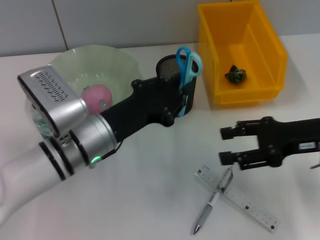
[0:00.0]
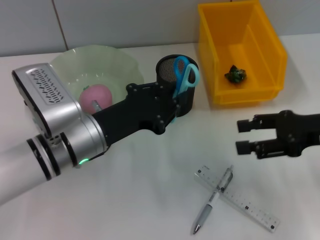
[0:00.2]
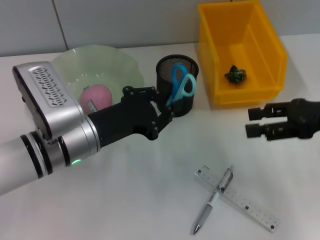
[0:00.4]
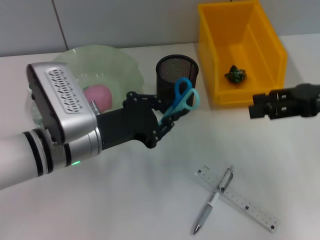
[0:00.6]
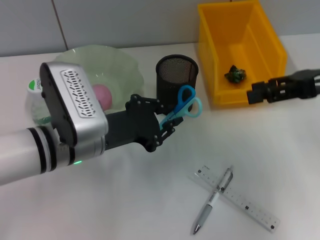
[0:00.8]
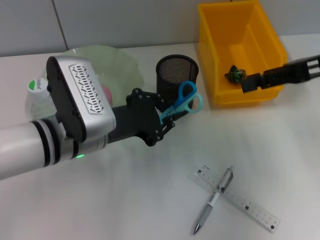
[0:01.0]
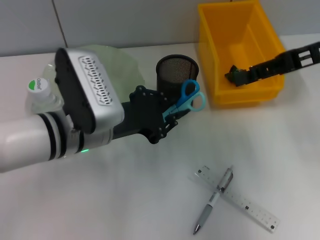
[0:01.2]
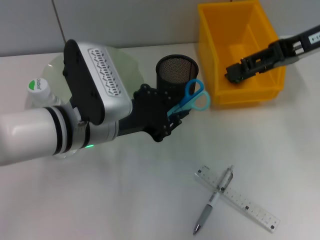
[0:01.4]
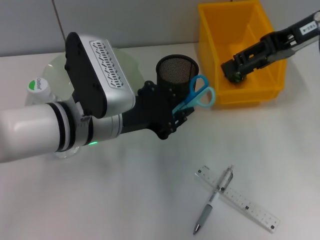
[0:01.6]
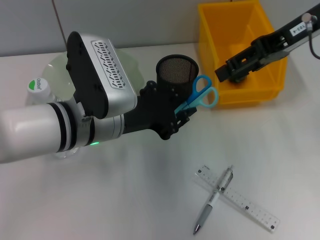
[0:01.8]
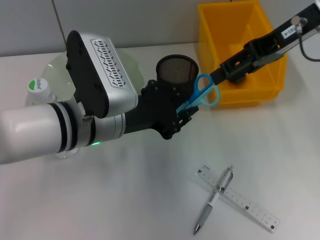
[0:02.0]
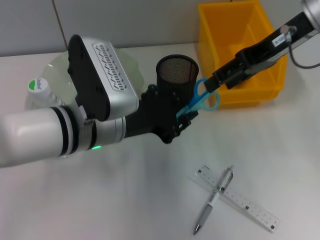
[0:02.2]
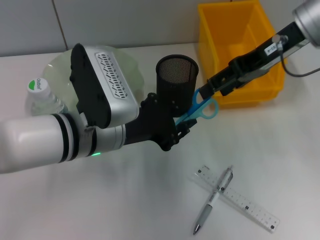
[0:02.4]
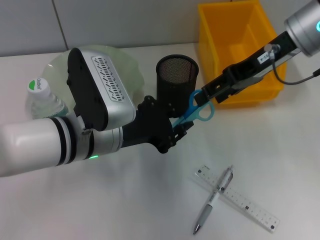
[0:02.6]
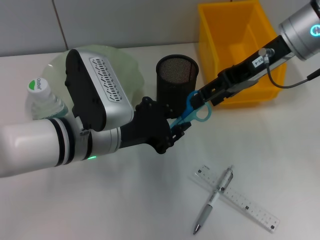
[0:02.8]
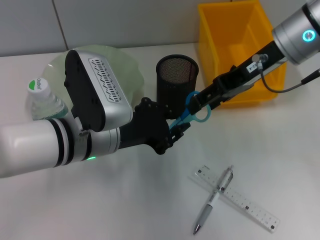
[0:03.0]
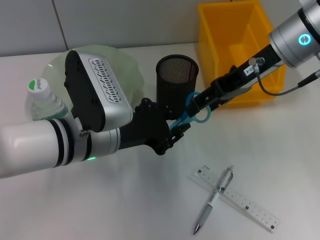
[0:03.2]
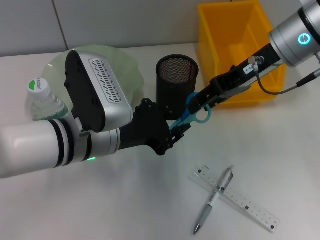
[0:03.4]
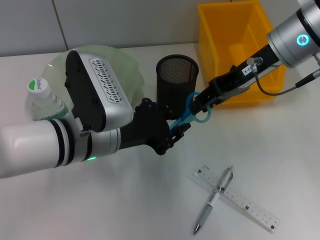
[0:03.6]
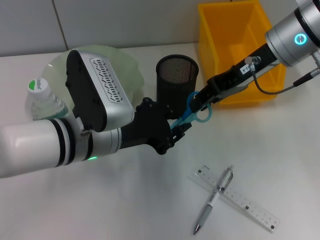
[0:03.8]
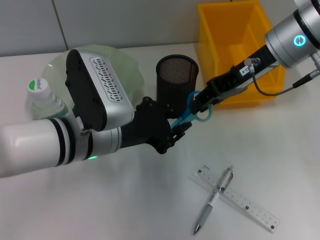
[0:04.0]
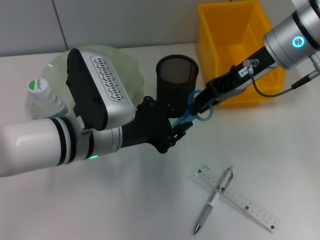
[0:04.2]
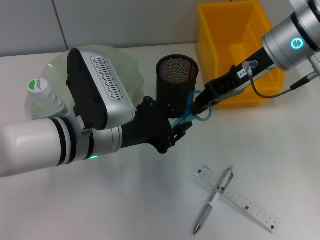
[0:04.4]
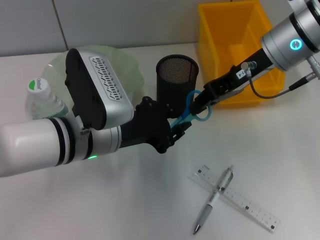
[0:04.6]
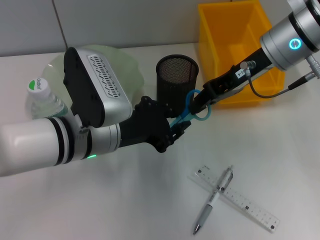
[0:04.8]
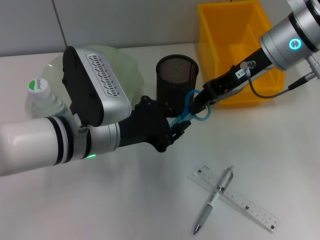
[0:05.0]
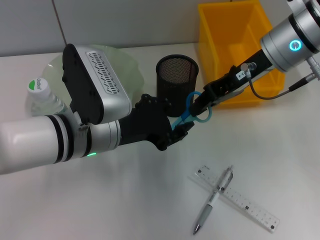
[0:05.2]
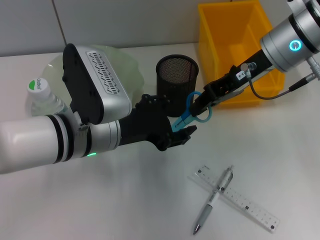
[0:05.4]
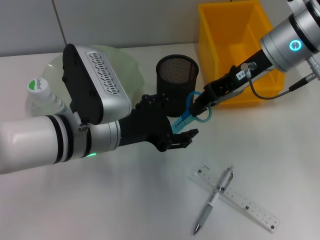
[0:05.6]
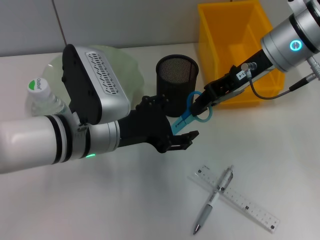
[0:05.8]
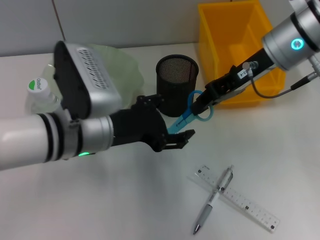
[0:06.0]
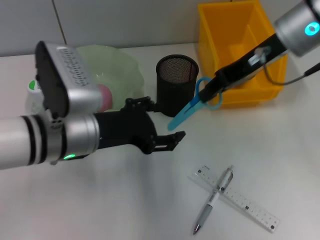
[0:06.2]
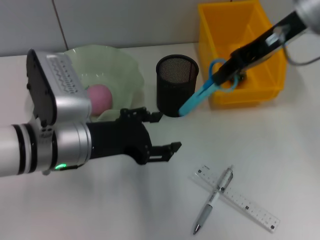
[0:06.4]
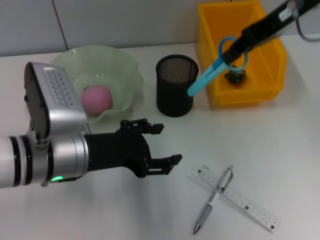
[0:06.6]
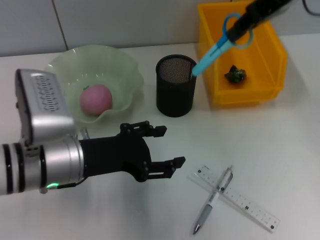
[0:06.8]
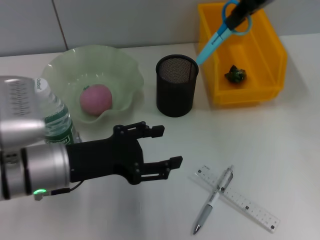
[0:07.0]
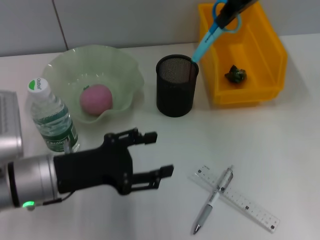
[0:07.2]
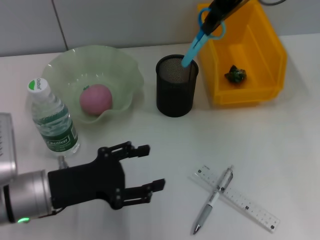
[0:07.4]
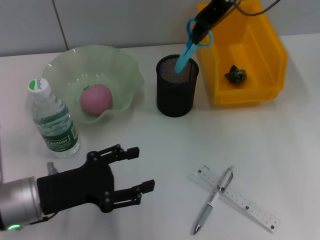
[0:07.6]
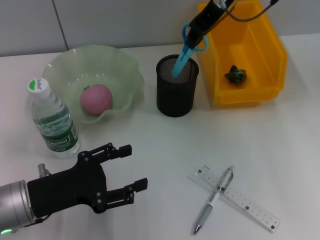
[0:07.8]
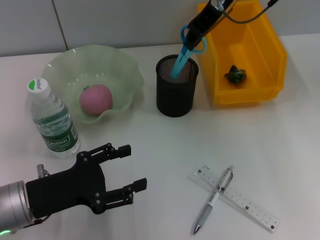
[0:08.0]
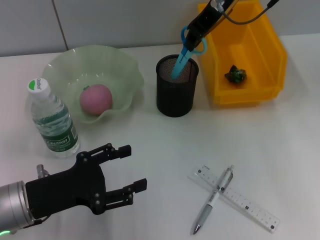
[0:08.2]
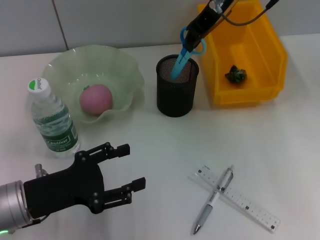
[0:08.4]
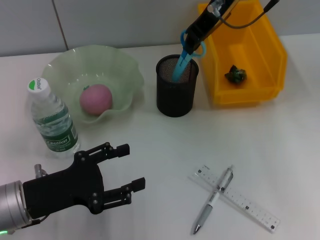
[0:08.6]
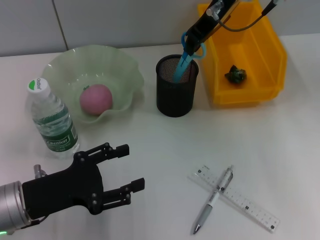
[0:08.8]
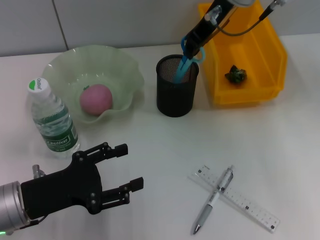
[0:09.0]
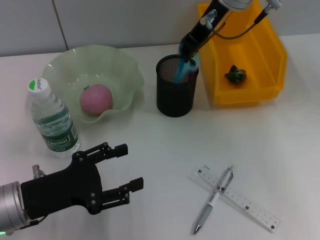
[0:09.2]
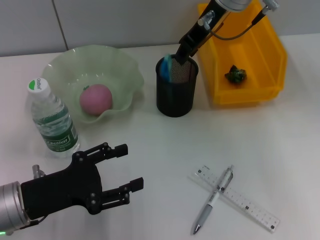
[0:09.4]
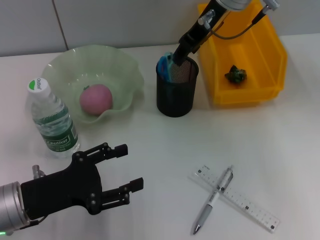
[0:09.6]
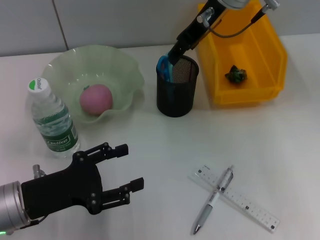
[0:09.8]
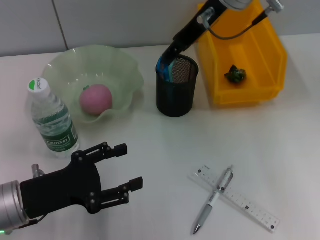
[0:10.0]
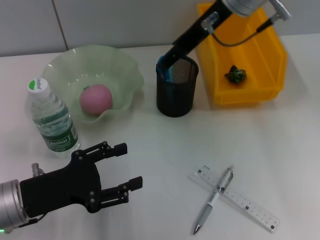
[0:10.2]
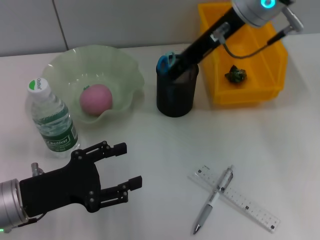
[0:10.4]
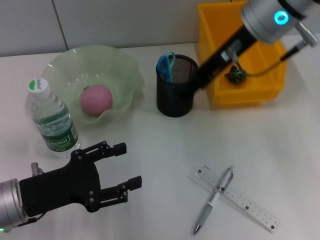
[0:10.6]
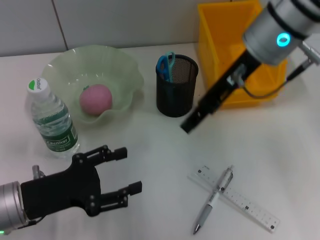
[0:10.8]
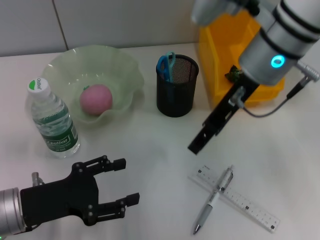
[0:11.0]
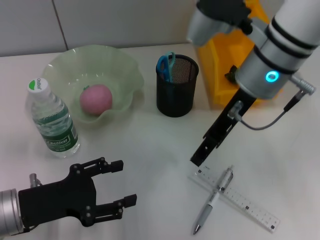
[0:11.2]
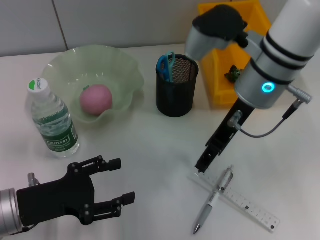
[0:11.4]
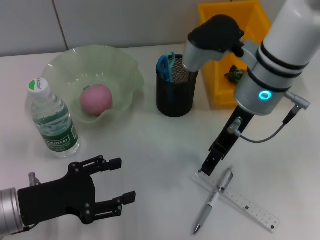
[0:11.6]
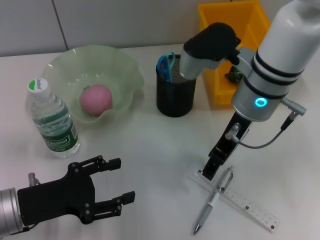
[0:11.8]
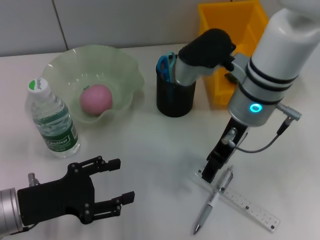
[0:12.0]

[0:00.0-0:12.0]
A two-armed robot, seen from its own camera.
Step, 0:00.0 to 0:05.8: Pass the blue scissors from the left hand to the right hand.
Step, 0:06.0 to 0:09.6: Place the blue scissors into the pen holder with the right hand.
0:00.0 to 0:01.6: The right gripper heads upward and forward, covering approximately 15 cm. The left gripper ends up some 5 cm from where it was.
0:01.6 to 0:03.0: The right gripper travels to the left by some 5 cm.
0:03.0 to 0:04.4: The right gripper closes up.
0:04.4 to 0:06.0: The left gripper opens.
0:06.0 to 0:07.6: The right gripper is displaced upward and forward by some 10 cm. The left gripper moves to the left, downward and backward, roughly 15 cm.
0:07.6 to 0:09.0: The grippers stay close to where they were, moving slightly.
0:09.0 to 0:10.4: The right gripper moves backward, about 5 cm, and opens.
0:10.4 to 0:12.0: The right gripper moves downward, some 10 cm.

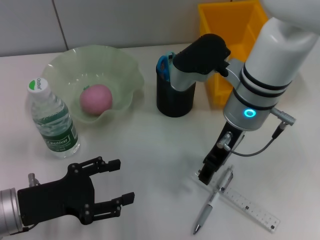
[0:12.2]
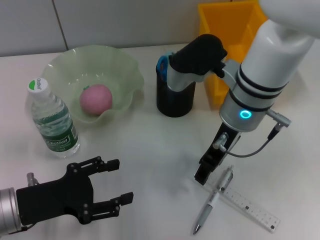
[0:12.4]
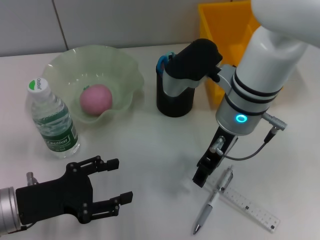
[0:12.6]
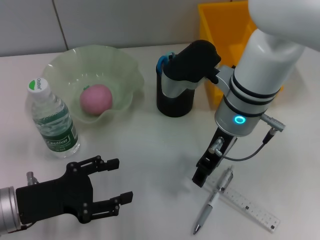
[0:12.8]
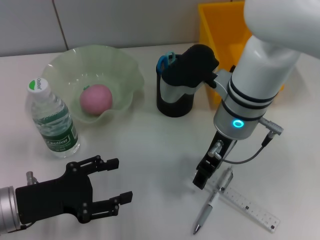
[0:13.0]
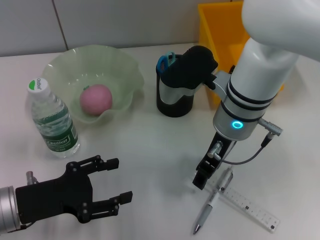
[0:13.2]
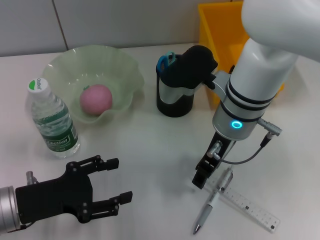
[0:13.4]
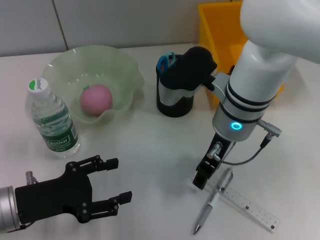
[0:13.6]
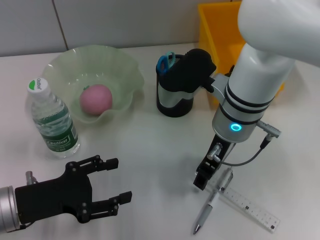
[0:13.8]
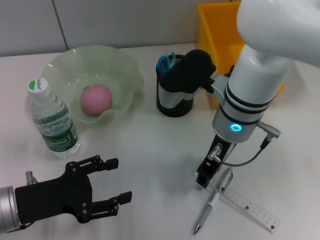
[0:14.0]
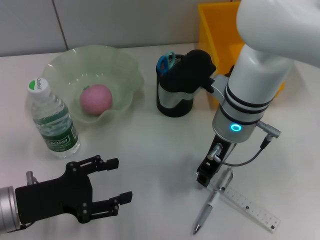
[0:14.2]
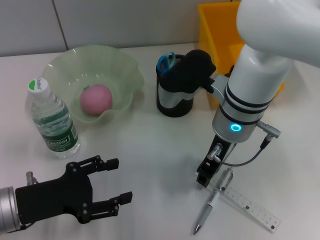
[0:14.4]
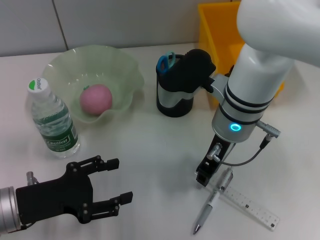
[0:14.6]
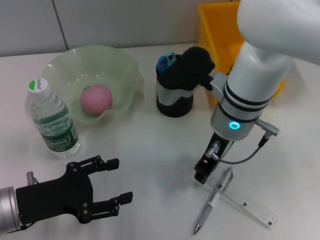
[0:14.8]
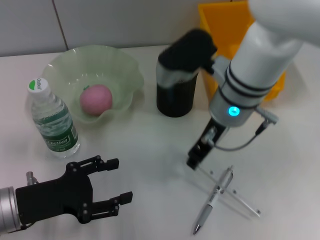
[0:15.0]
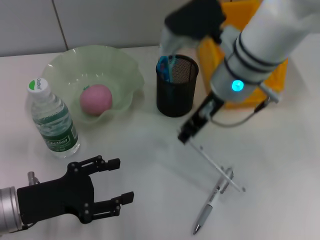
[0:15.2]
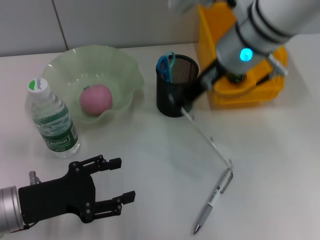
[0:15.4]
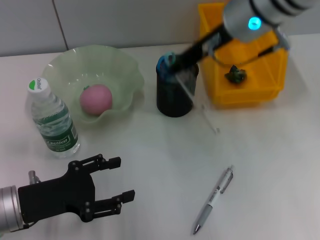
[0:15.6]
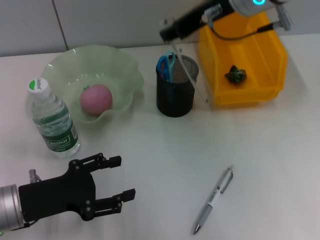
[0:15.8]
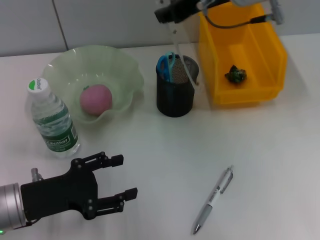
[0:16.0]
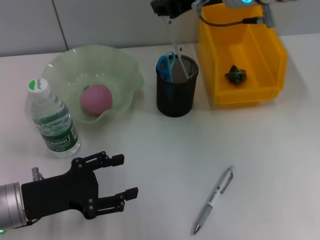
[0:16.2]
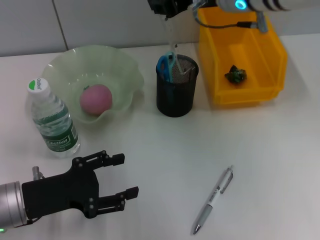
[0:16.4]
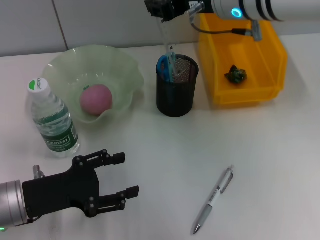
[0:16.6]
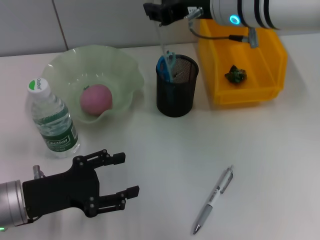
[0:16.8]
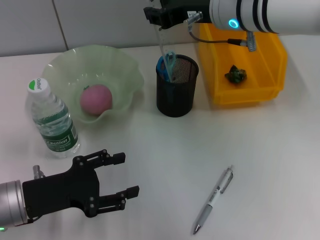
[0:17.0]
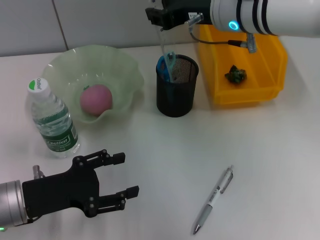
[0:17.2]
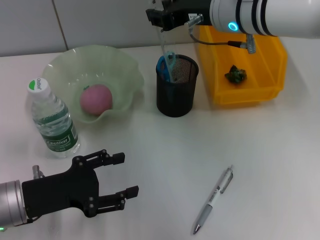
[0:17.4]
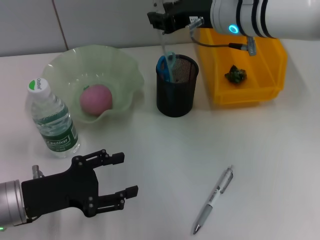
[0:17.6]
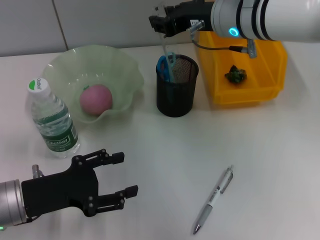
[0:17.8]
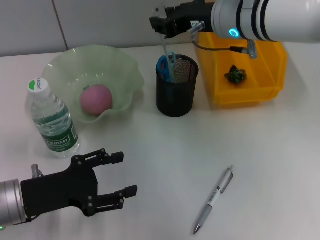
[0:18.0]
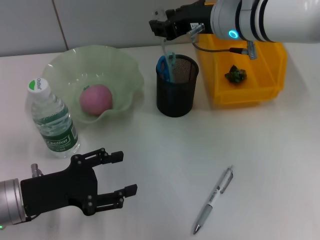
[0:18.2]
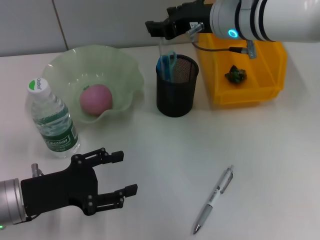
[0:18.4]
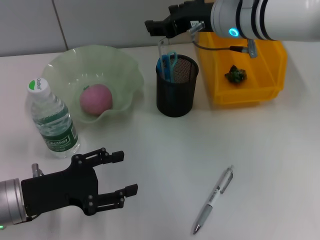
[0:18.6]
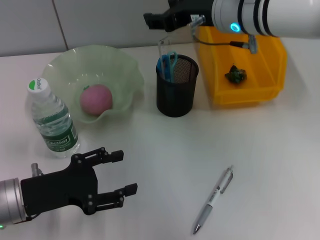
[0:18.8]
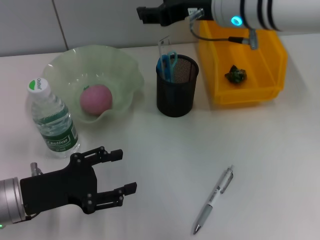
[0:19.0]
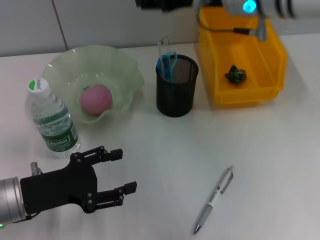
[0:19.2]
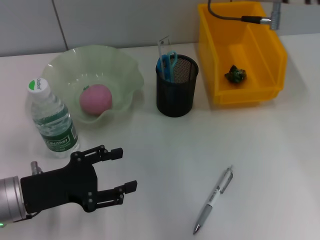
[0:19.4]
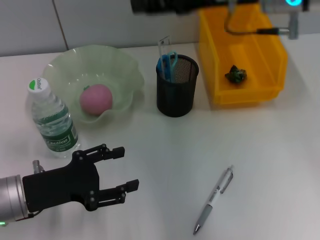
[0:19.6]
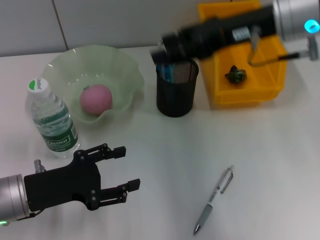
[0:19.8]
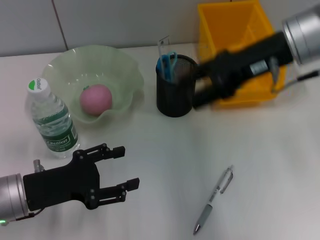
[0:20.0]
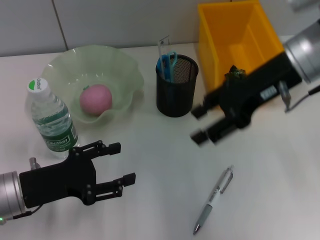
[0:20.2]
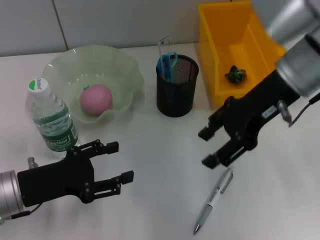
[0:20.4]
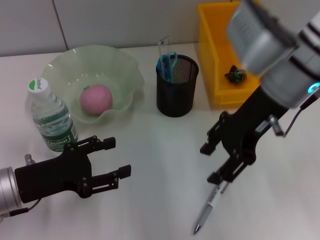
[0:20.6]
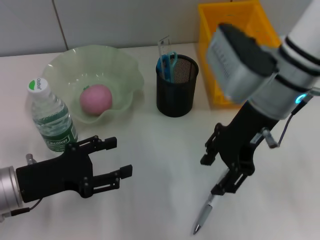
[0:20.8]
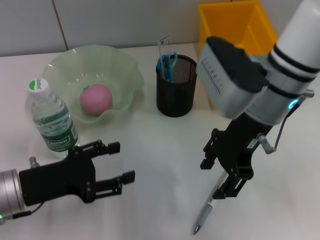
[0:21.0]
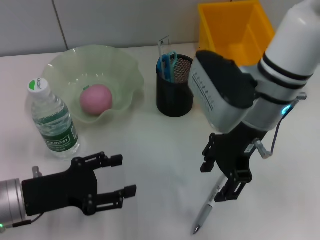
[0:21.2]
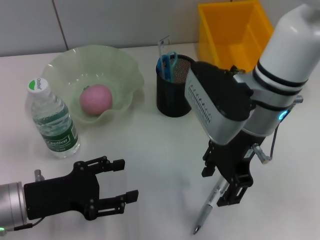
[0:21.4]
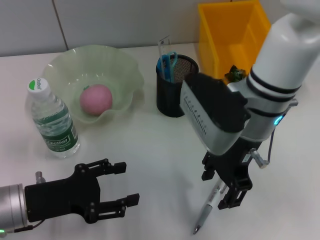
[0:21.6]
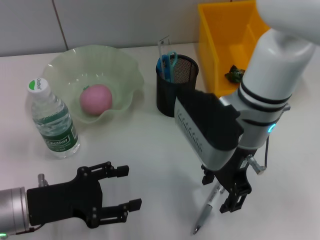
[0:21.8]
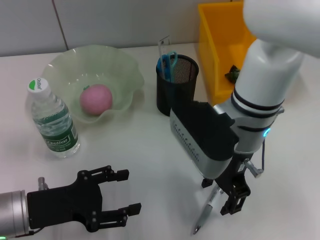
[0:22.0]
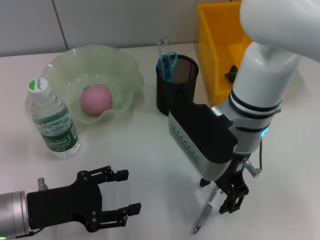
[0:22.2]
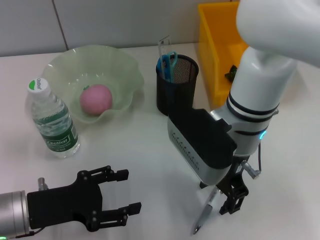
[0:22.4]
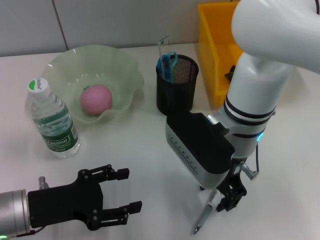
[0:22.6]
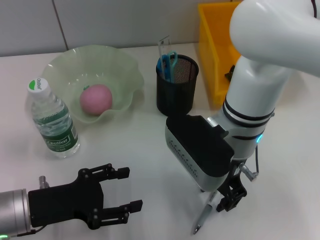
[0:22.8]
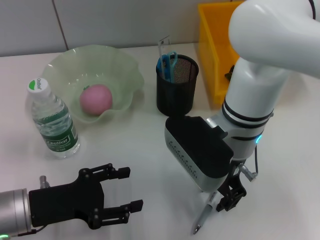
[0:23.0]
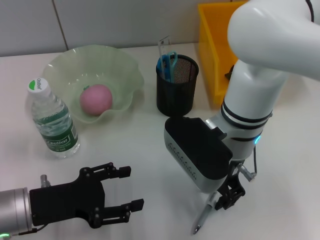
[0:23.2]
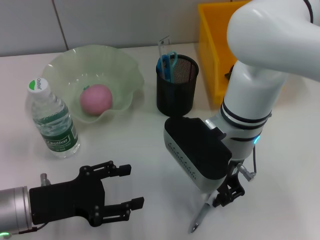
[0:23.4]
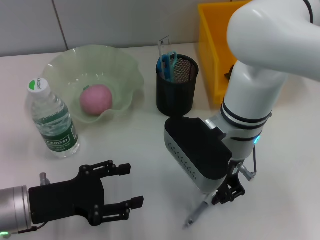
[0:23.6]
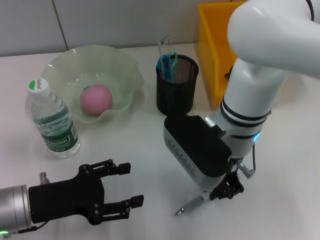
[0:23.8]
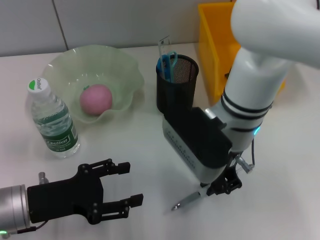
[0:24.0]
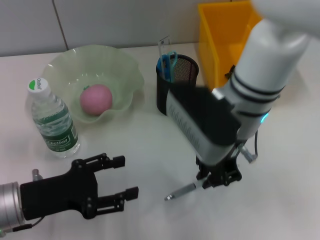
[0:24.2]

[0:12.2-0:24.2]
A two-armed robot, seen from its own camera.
Step, 0:12.2 to 0:14.4: Grab the ruler with the right hand.
Step, 0:14.6 to 0:18.8: Place the ruler into the pen holder with the right hand.
Step, 0:19.0 to 0:23.6: Grab the gray spring-action pen with the right hand.
0:12.2 to 0:13.8: The grippers move only a little.
0:13.8 to 0:15.2: The right gripper moves upward, about 5 cm, and closes.
0:15.2 to 0:16.6: The right gripper moves upward, roughly 5 cm.
0:16.6 to 0:18.2: The grippers make only small movements.
0:18.2 to 0:19.8: The right gripper travels to the right by about 5 cm, and opens up.
0:19.8 to 0:21.2: The right gripper travels to the left and downward by some 10 cm.
0:21.2 to 0:22.6: The right gripper moves approximately 5 cm.
0:22.6 to 0:24.2: The right gripper closes up.
